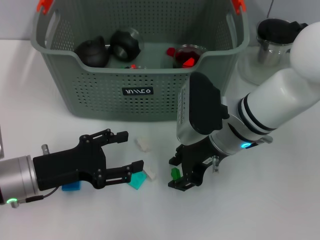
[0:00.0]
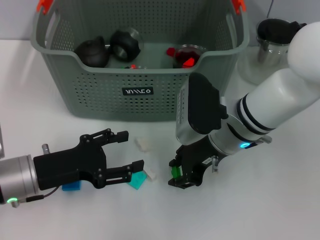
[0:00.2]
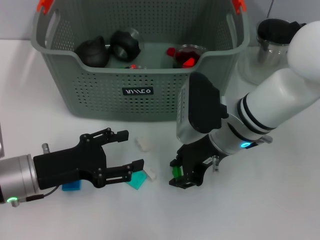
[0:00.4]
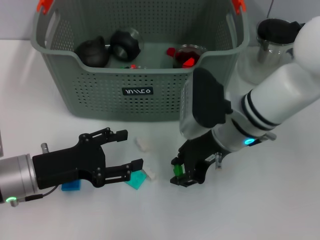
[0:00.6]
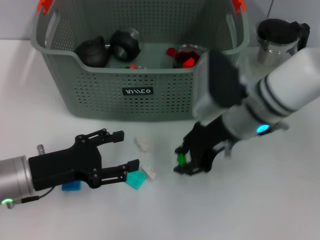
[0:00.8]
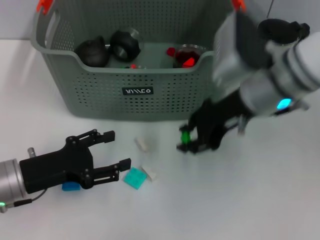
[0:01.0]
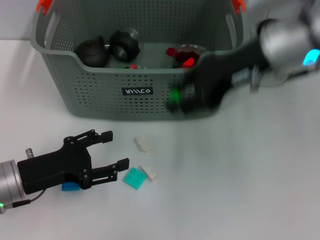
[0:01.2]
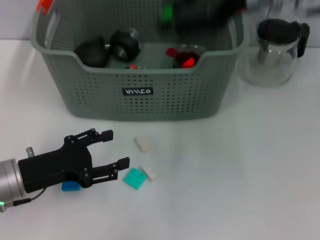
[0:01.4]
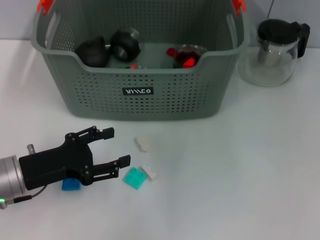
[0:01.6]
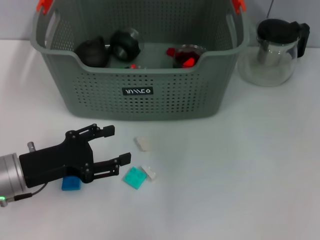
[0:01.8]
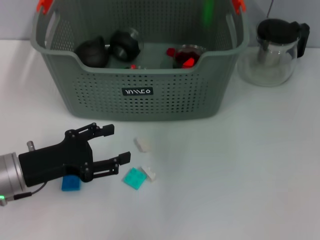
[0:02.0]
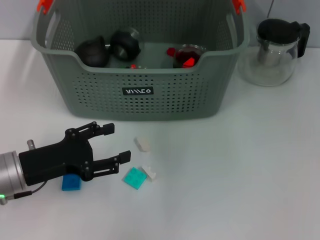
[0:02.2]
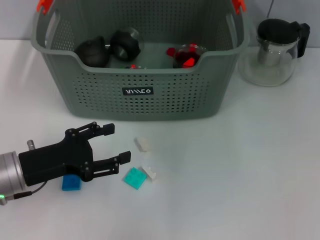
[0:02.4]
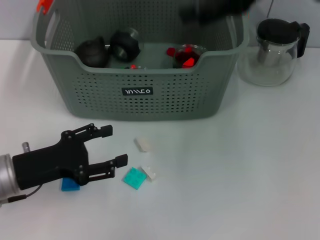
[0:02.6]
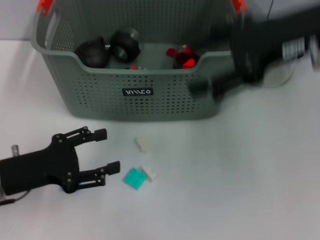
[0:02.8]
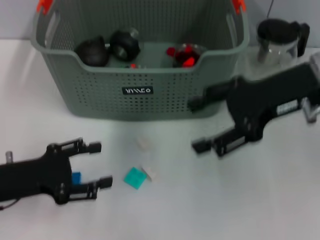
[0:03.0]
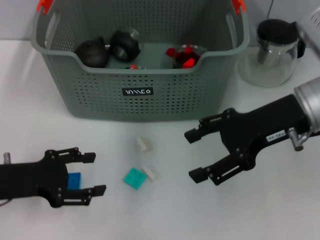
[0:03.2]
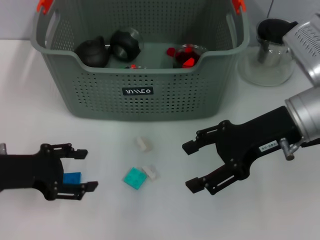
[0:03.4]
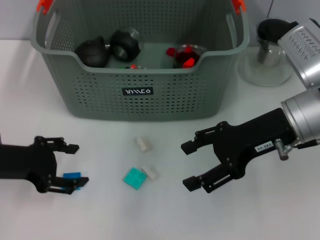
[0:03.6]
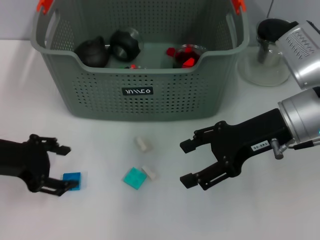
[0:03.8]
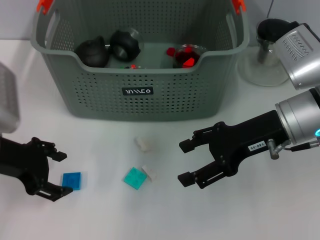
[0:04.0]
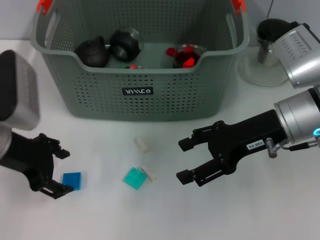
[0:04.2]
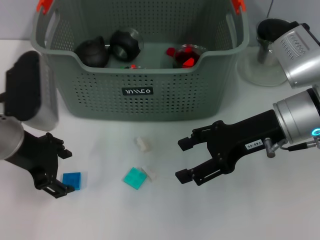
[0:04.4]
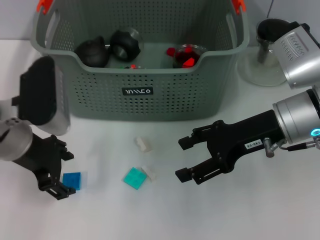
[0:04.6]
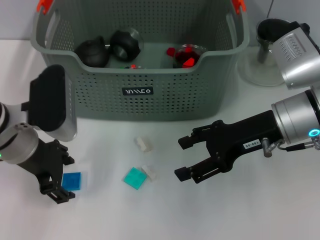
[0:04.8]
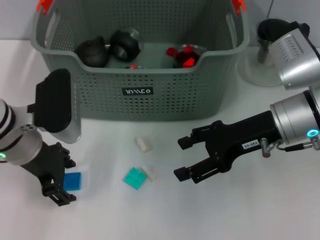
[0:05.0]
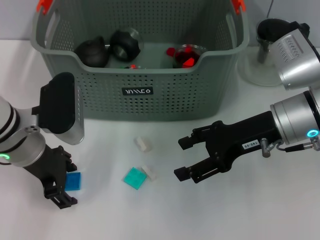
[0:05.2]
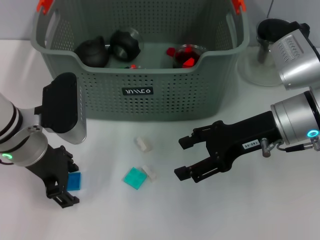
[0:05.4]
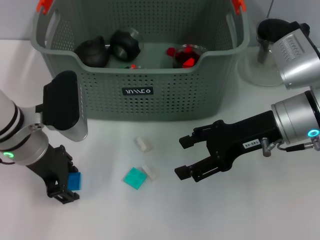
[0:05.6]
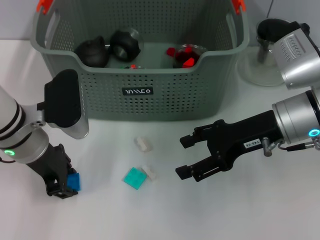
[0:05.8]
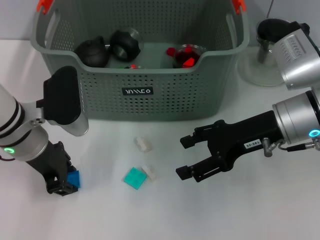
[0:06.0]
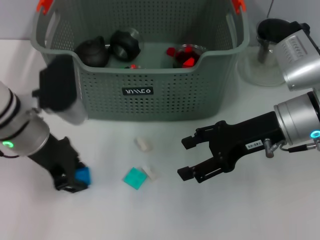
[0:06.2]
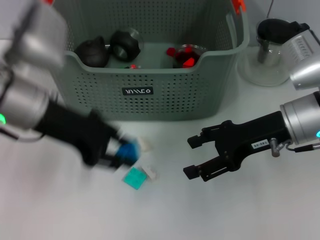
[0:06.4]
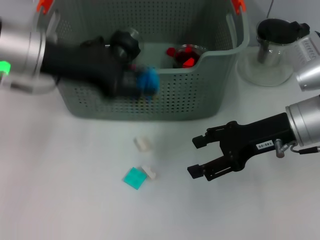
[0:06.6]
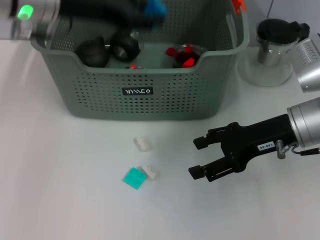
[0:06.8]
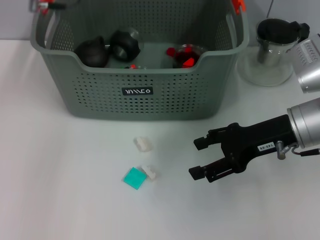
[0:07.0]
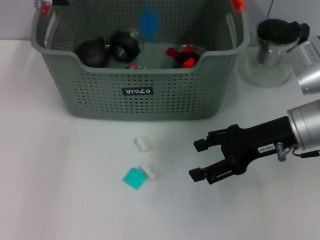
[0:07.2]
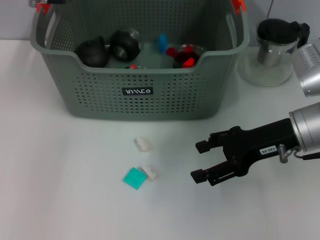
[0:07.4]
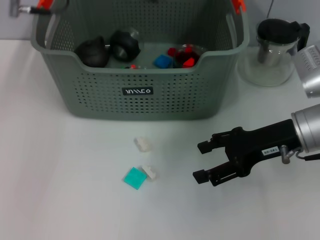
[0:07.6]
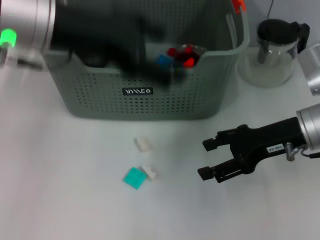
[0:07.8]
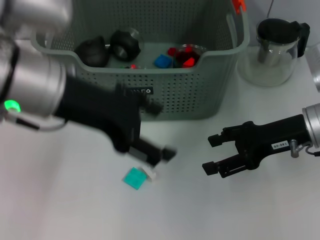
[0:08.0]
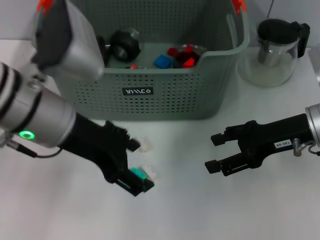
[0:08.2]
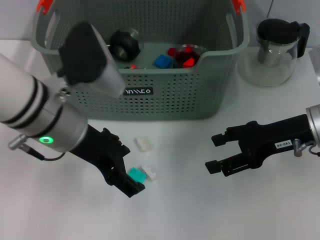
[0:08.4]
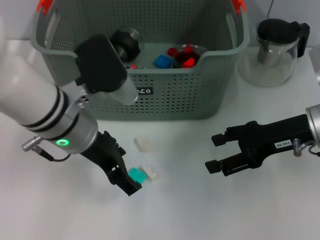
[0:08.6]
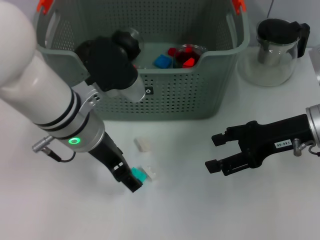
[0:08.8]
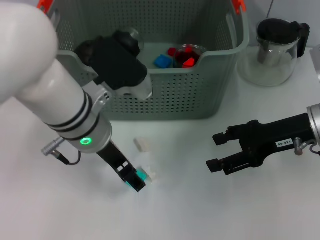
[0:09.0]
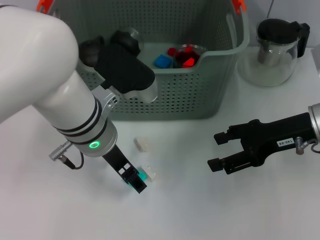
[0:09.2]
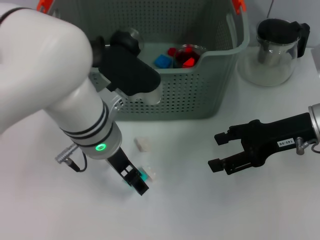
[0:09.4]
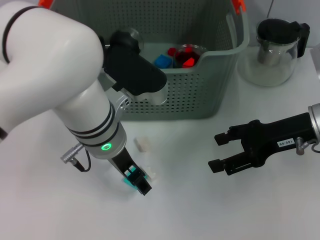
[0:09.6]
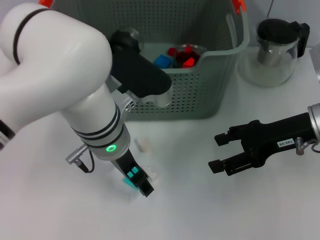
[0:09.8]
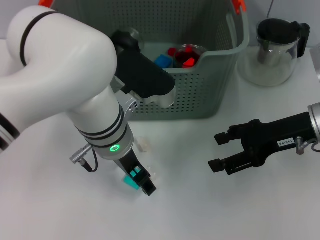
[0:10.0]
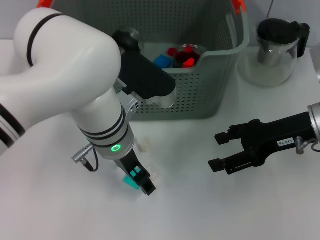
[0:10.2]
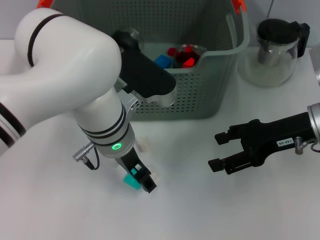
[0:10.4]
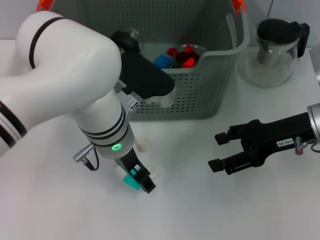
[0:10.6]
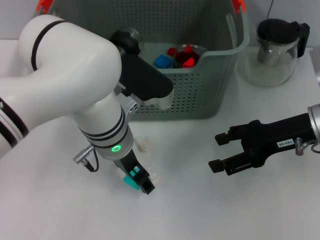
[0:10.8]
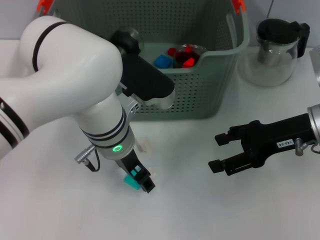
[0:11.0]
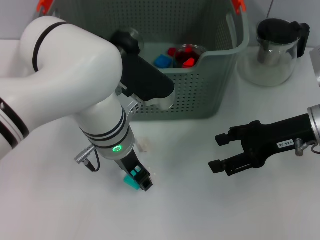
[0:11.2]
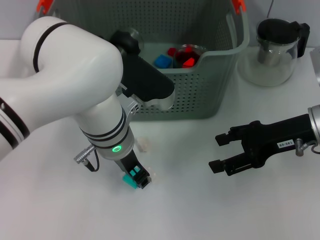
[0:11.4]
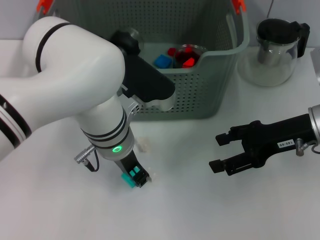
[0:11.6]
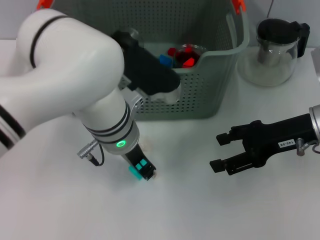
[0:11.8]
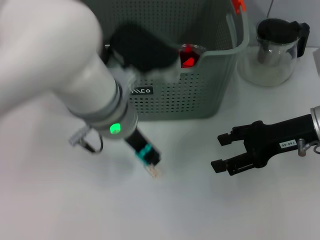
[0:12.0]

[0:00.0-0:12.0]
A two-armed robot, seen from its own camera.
Task of the whole recording: pick up the teacup on the table and place it into the storage bin, pick up the block on the table and place it into the storage bin.
Step, 0:00.6 to 0:02.0: Place the green block in the storage box with right gripper.
Step, 0:02.2 to 0:05.8: Grasp the dark blue block with left gripper.
Step, 0:06.0 to 0:07.2: Place the dark blue block in the storage box with left gripper.
Step, 0:07.4 to 0:11.6: Grasp the light blue block with left gripper.
0:00.0 to 0:01.6: The right gripper heads upward, covering approximately 25 cm.
0:01.6 to 0:03.0: The right gripper goes some 15 cm downward, and opens.
0:03.0 to 0:04.4: The right gripper is displaced downward by approximately 5 cm, while the left gripper travels upward, forward and to the right by some 10 cm.
0:04.4 to 0:06.0: The left gripper closes up.
0:06.0 to 0:07.6: The left gripper shifts roughly 15 cm upward.
0:07.6 to 0:09.0: The left gripper moves downward, backward and to the right, some 15 cm.
0:10.4 to 0:12.0: The left gripper closes its fingers.

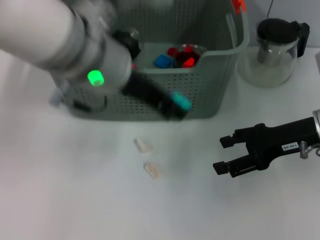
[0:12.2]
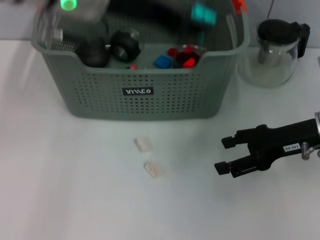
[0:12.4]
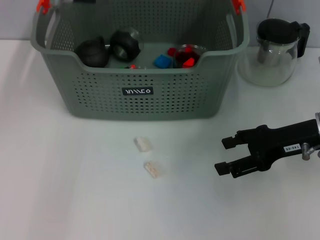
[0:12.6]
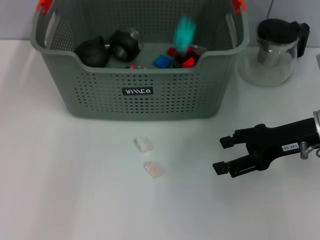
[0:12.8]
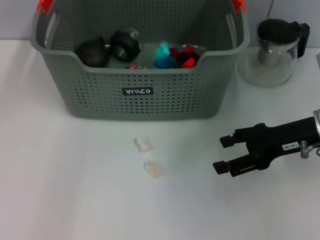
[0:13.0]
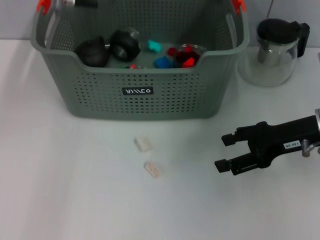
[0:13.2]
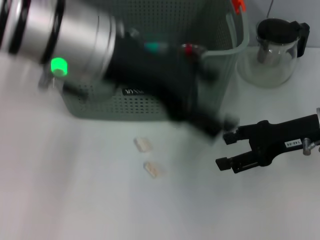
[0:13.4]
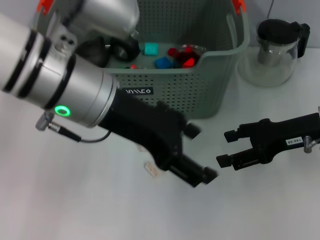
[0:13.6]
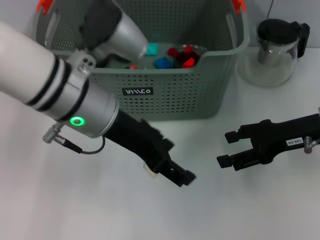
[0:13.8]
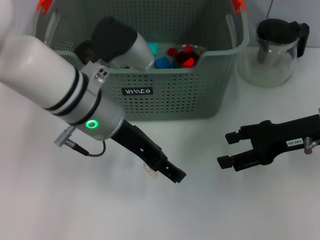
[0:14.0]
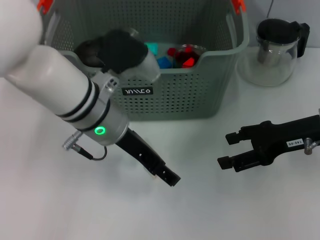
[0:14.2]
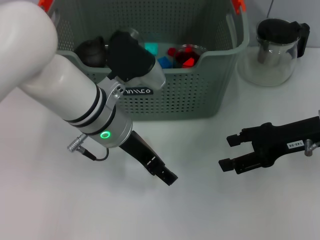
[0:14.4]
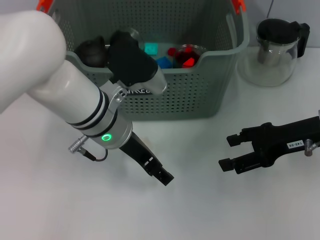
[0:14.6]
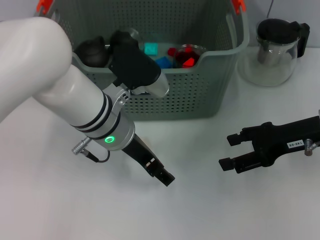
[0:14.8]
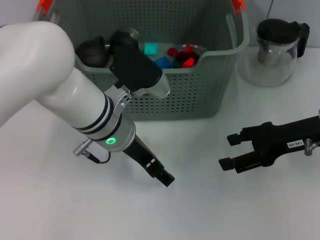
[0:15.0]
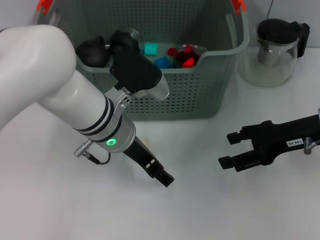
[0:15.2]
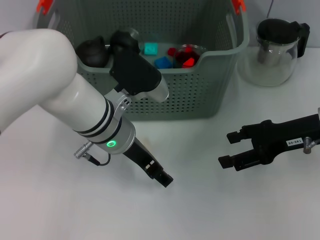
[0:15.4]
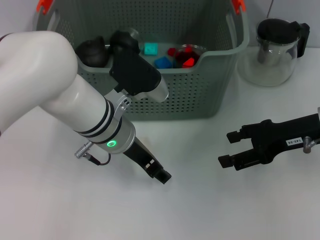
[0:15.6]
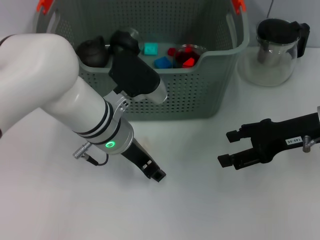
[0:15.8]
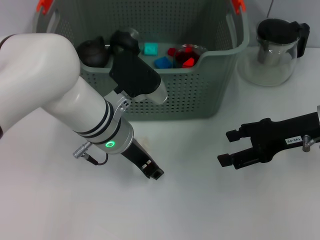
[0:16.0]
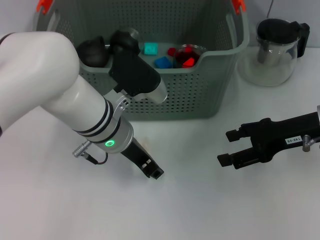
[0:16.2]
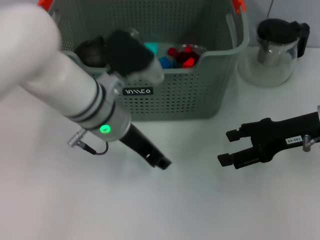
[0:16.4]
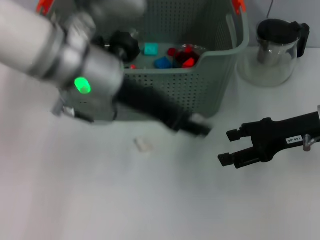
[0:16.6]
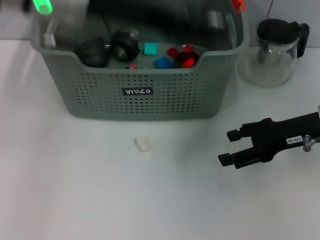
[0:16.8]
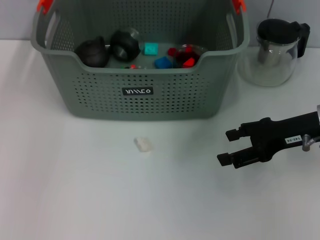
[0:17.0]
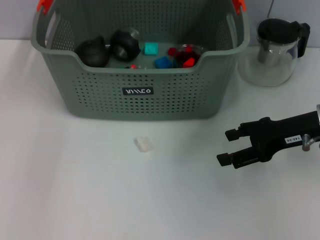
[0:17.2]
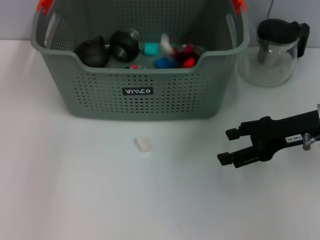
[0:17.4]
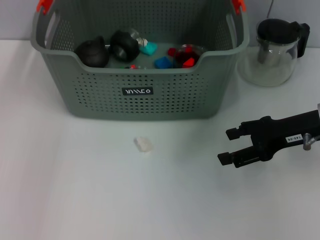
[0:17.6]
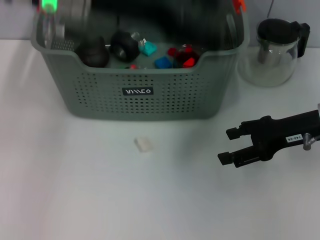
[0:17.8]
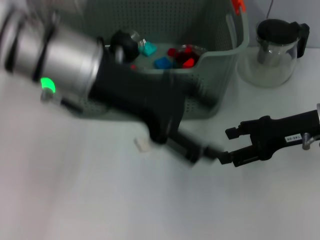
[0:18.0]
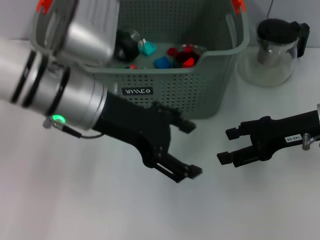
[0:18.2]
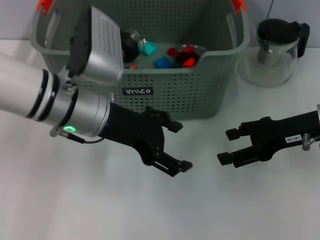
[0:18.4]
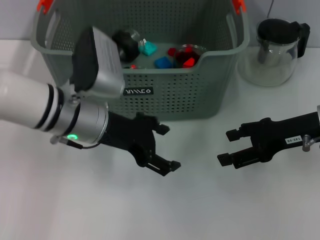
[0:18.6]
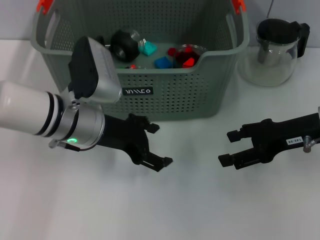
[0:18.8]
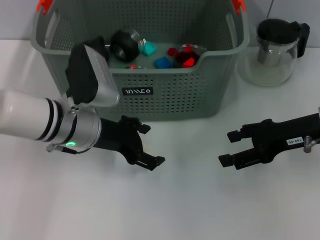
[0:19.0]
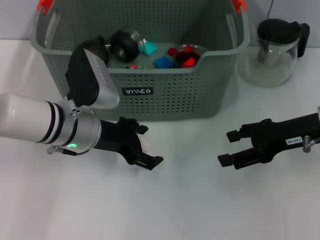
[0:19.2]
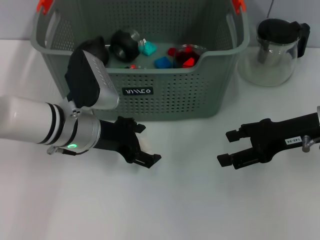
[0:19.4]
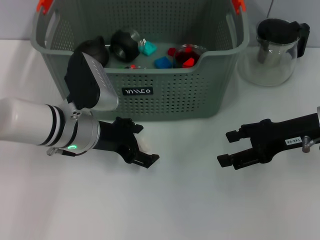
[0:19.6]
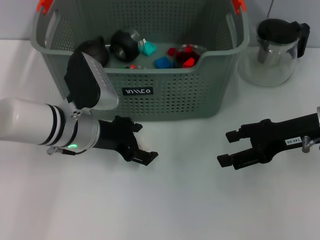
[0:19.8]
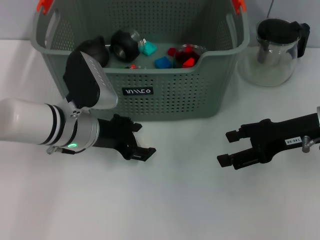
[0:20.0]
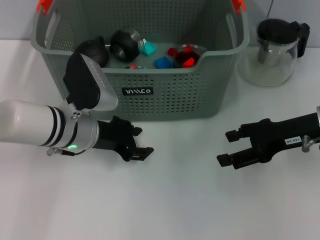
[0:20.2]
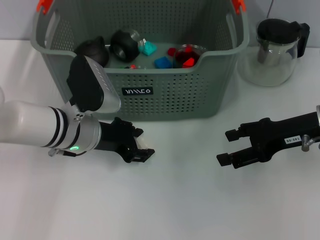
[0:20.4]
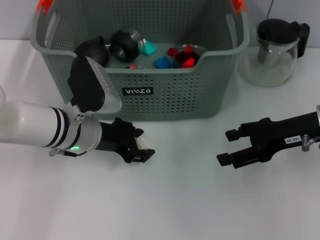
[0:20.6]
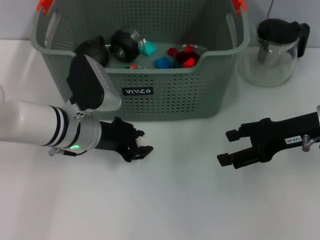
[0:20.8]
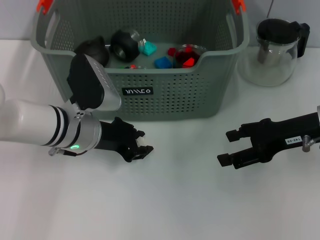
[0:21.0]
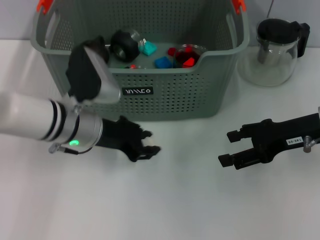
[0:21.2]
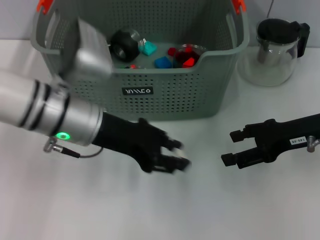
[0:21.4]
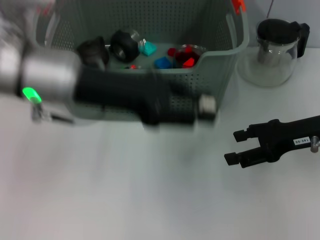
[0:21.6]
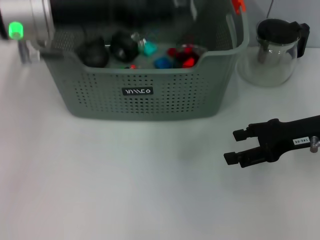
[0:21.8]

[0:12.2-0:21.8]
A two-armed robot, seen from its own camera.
Task of the whole recording: pick up the teacup on the table and place it into the storage bin, pick up the block on the table and place it into the storage bin.
Step, 0:12.2 to 0:12.8: Place the light blue block in the storage box with left gripper.
Step, 0:13.0 to 0:16.2: Grasp the white block with left gripper.
Step, 0:16.4 to 0:17.2: Place the white block in the storage box with left gripper.
Step, 0:17.6 to 0:20.8: Grasp the white block with left gripper.
0:12.2 to 0:13.8: The left gripper travels downward by some 5 cm, and opens up.
0:13.8 to 0:15.4: The left gripper goes roughly 10 cm downward.
0:15.4 to 0:17.0: The left gripper is displaced upward by some 20 cm, and closes.
0:17.0 to 0:18.6: The left gripper shifts some 20 cm downward, and opens its fingers.
0:18.6 to 0:20.2: The left gripper shifts some 5 cm downward.
0:20.2 to 0:21.8: The left gripper is displaced upward by approximately 20 cm, and closes.
